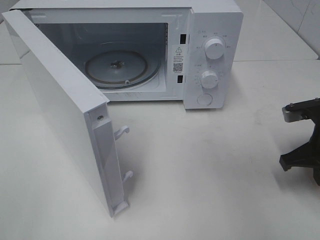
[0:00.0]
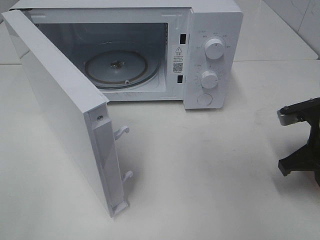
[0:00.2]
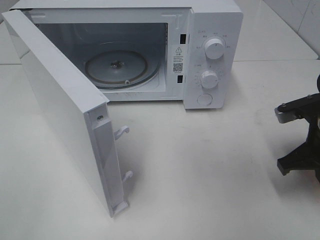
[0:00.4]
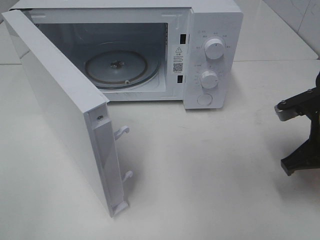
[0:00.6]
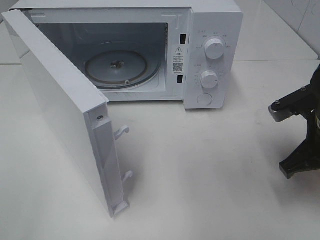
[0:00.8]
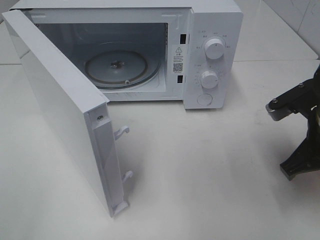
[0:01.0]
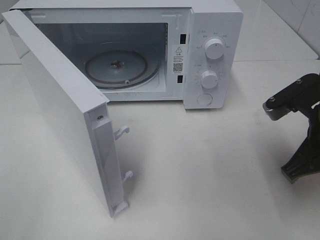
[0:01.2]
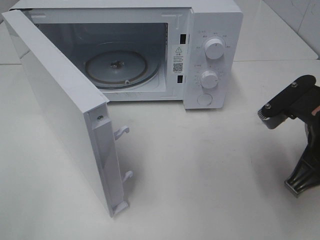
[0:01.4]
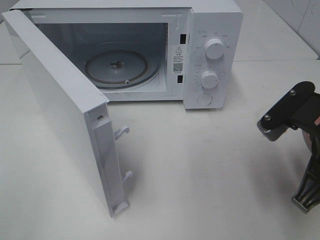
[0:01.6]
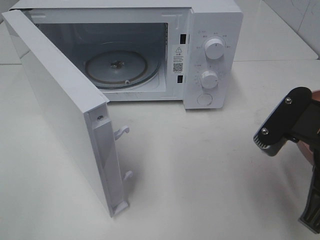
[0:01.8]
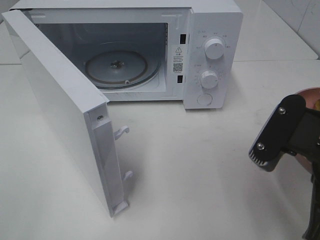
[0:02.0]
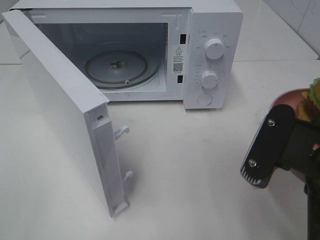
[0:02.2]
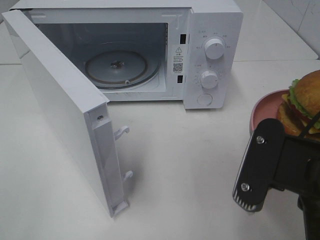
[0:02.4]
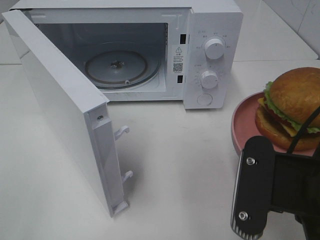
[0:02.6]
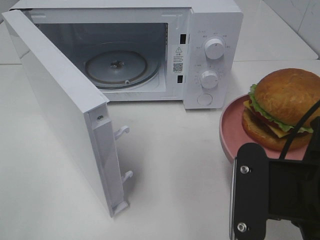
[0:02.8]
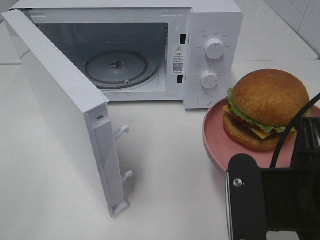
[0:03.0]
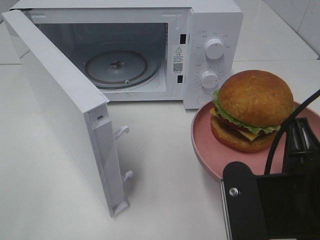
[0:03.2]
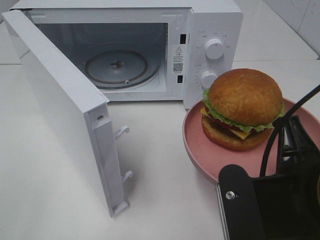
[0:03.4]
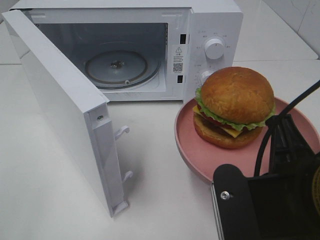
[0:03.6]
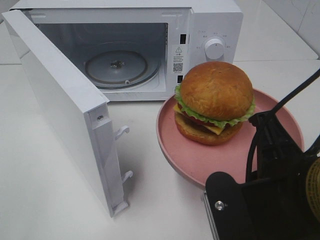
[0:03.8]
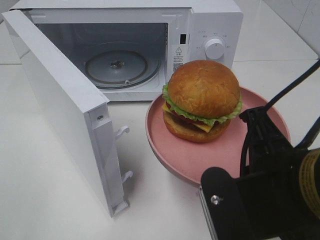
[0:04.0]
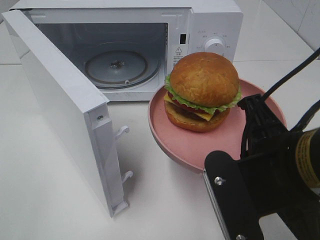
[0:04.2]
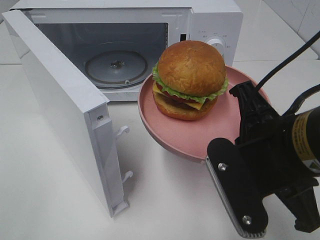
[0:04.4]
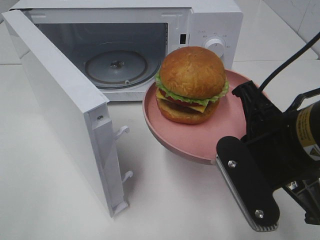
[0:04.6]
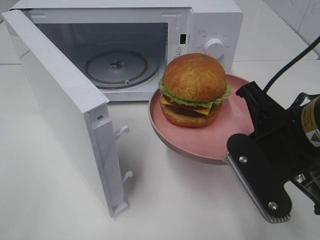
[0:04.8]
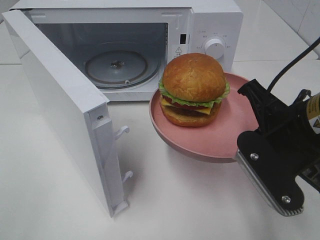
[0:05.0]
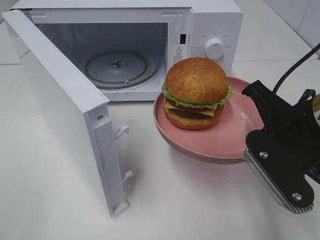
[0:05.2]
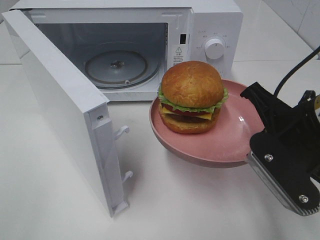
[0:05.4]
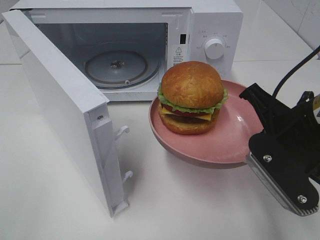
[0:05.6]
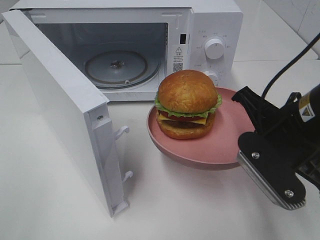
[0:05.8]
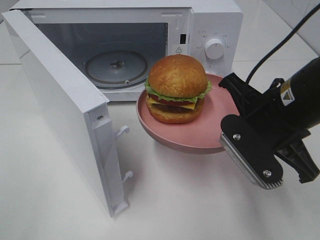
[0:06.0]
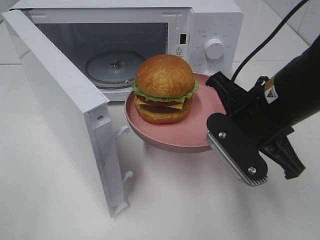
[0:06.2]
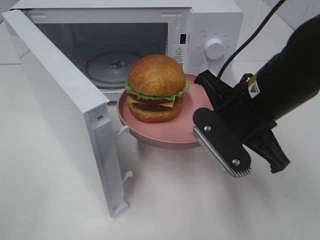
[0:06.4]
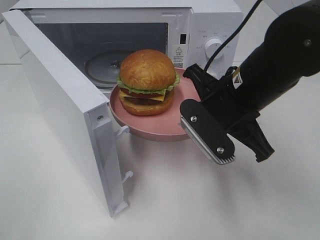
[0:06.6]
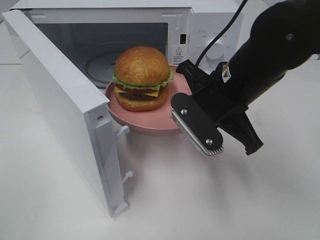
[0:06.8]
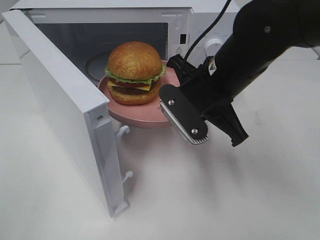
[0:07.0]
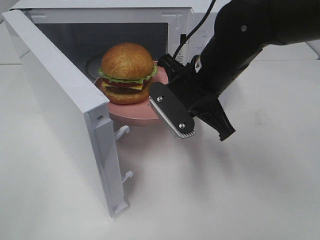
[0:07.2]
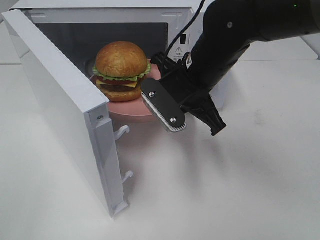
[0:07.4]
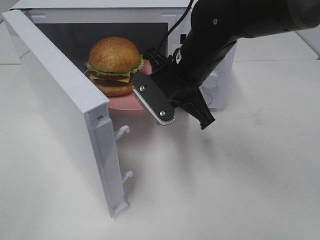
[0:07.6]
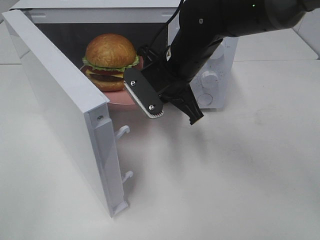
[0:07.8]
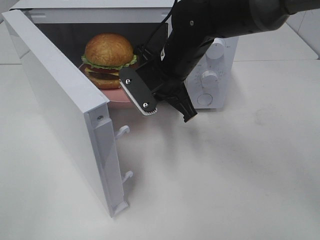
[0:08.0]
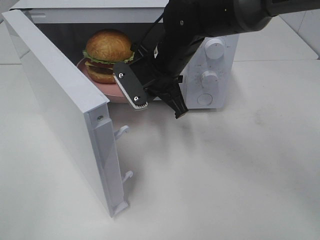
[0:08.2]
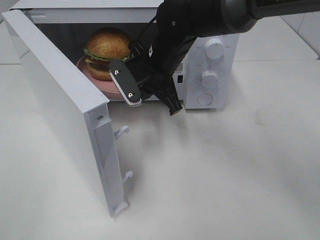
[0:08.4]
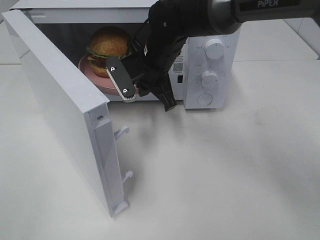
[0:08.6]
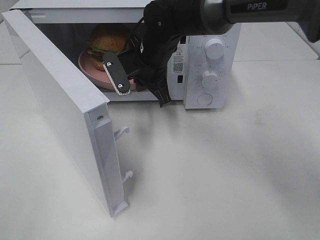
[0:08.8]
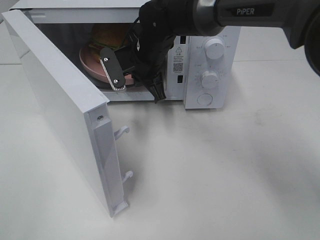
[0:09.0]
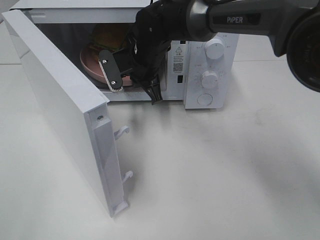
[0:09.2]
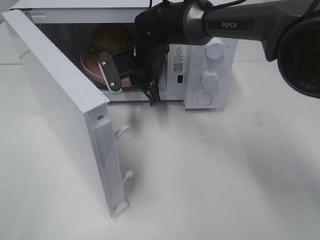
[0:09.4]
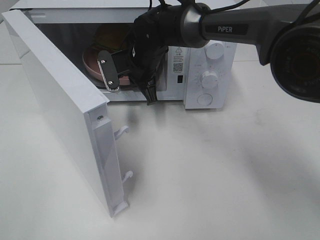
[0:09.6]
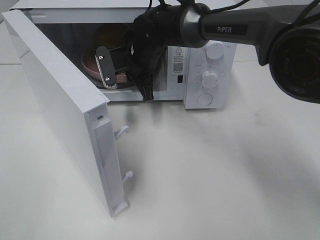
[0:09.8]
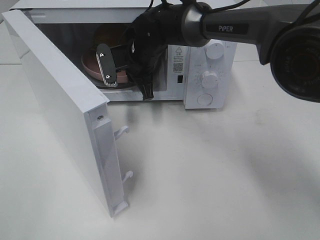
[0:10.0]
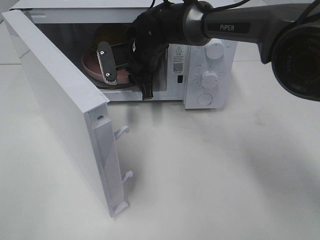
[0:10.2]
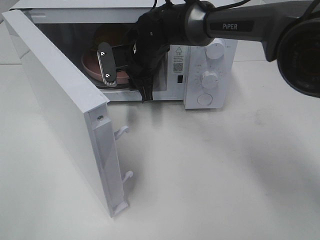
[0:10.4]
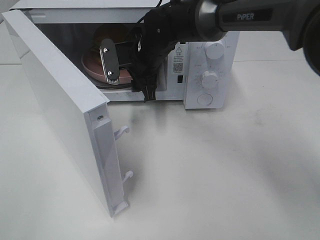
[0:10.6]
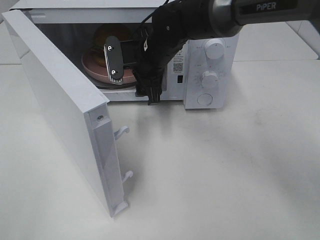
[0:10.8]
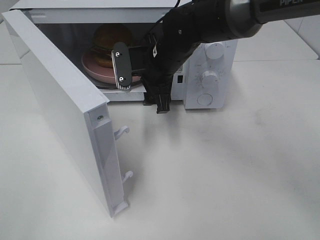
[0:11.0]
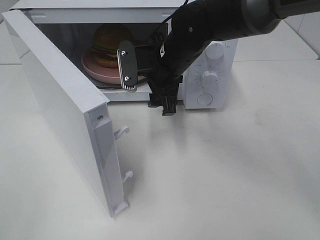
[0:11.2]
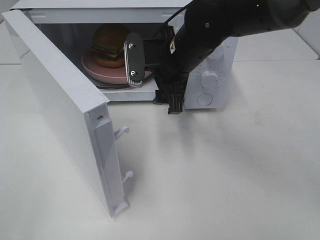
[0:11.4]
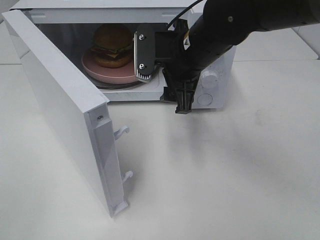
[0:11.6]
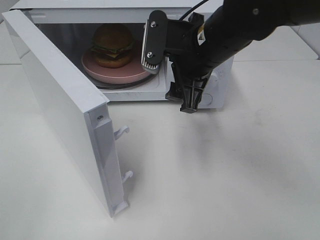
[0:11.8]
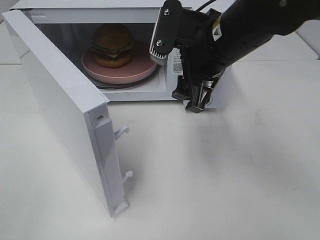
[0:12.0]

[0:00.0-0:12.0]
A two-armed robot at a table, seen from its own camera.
Task of the whole recording: Heat the burger.
Step, 0:00.0 to 0:10.8: Right hand: place the plate in the microwave.
0:00.0 to 0:01.6: The right gripper goes some 15 cm backward, to the left and upward.
0:01.6 to 0:03.0: The right gripper moves backward and to the left, approximately 10 cm.
0:03.0 to 0:04.4: The right gripper is displaced forward by approximately 5 cm.
0:04.4 to 0:06.0: The right gripper moves forward, some 5 cm.
0:06.0 to 0:07.6: The right gripper is displaced forward and to the left by about 15 cm.
0:07.6 to 0:09.0: The right gripper heads forward and to the left, covering approximately 10 cm.
0:09.0 to 0:10.4: The right gripper opens.
0:10.4 to 0:12.0: The right gripper heads backward, to the right and upward, covering roughly 20 cm.

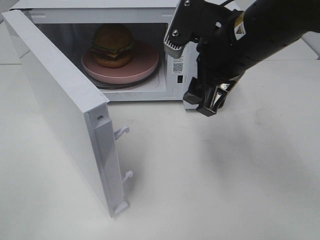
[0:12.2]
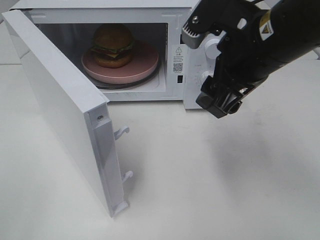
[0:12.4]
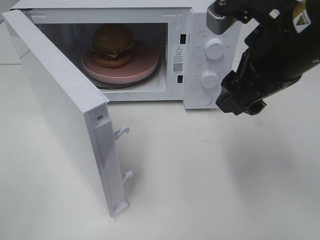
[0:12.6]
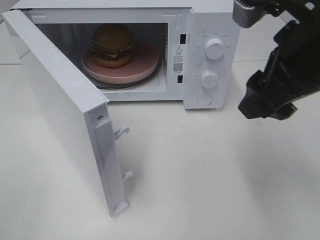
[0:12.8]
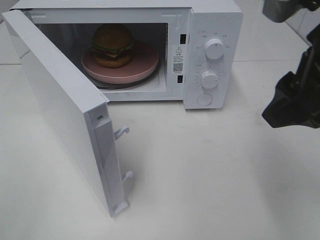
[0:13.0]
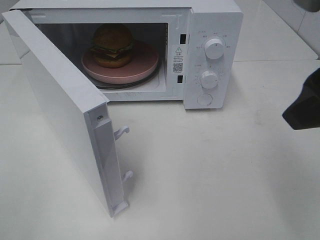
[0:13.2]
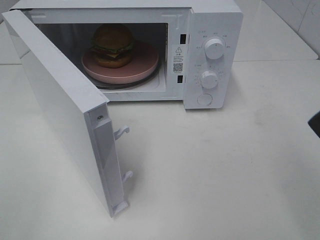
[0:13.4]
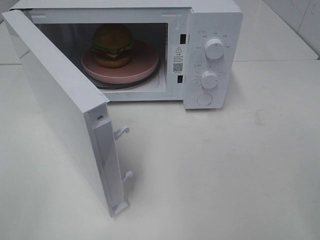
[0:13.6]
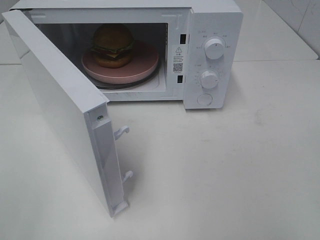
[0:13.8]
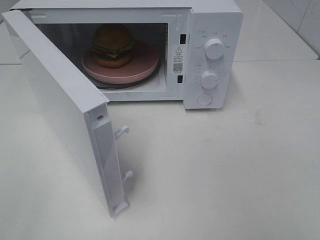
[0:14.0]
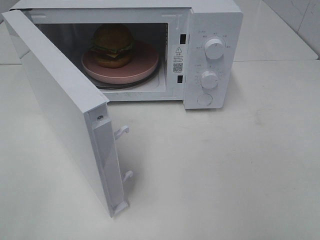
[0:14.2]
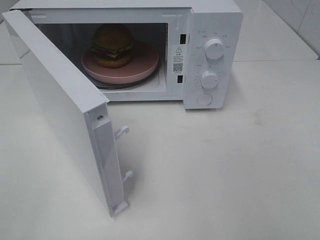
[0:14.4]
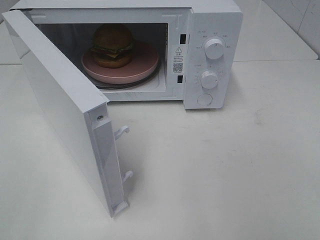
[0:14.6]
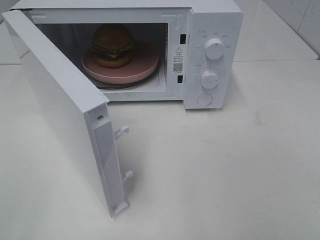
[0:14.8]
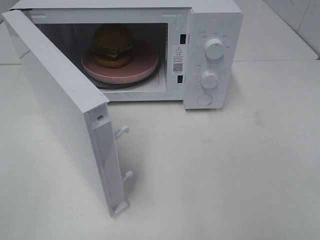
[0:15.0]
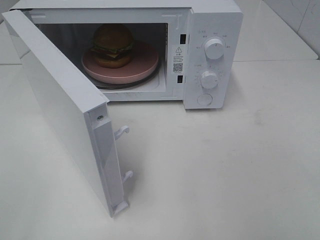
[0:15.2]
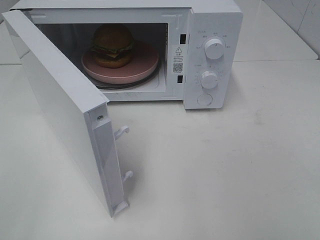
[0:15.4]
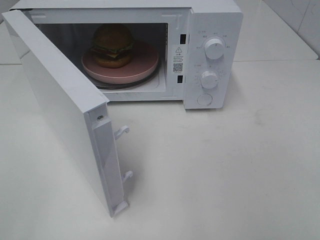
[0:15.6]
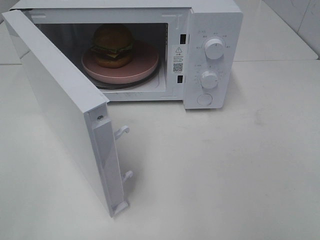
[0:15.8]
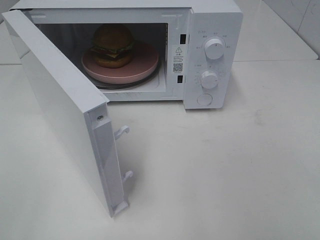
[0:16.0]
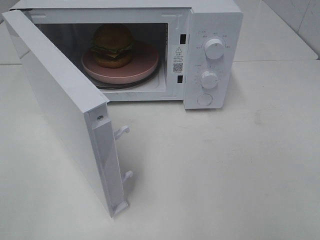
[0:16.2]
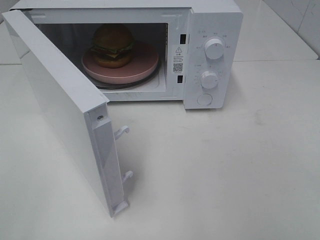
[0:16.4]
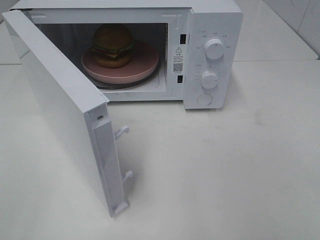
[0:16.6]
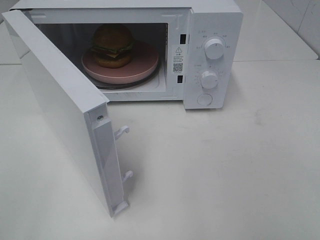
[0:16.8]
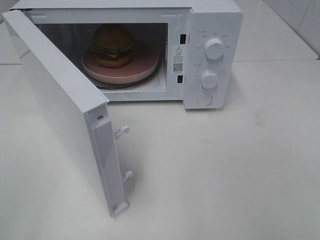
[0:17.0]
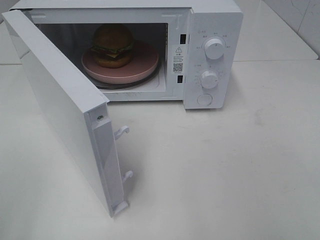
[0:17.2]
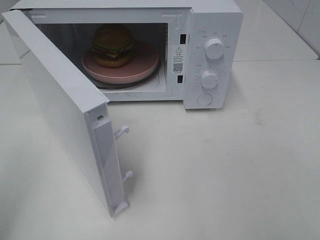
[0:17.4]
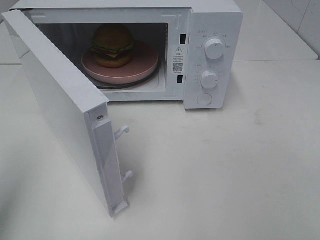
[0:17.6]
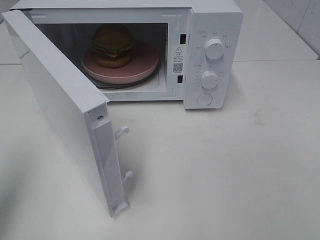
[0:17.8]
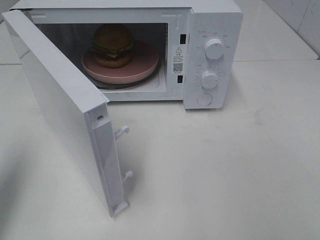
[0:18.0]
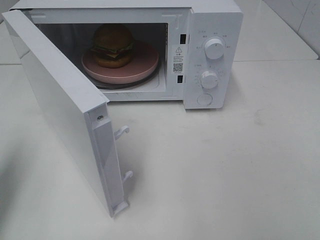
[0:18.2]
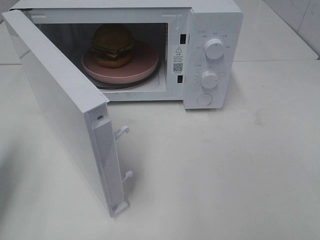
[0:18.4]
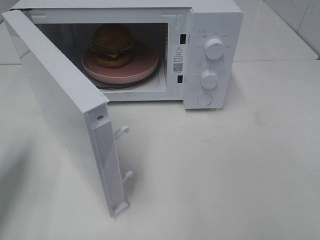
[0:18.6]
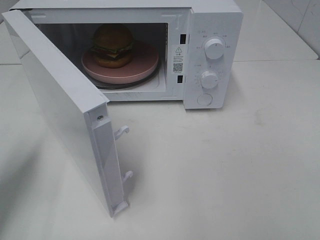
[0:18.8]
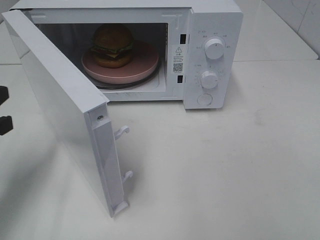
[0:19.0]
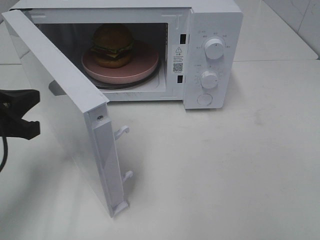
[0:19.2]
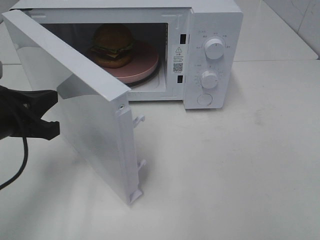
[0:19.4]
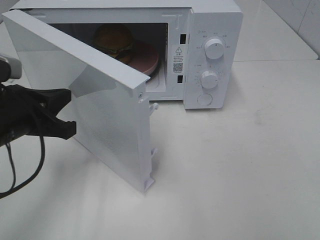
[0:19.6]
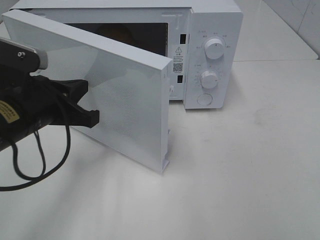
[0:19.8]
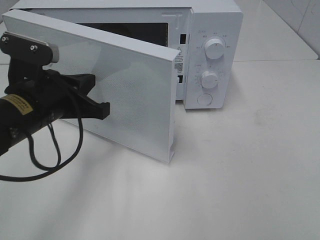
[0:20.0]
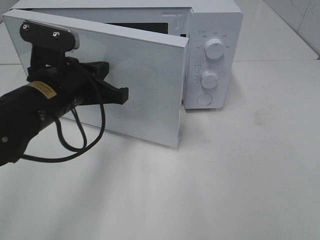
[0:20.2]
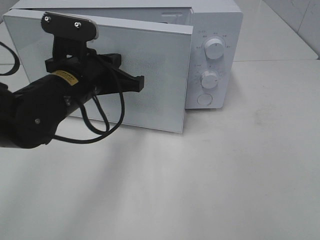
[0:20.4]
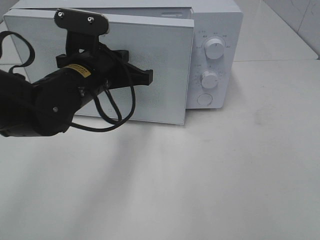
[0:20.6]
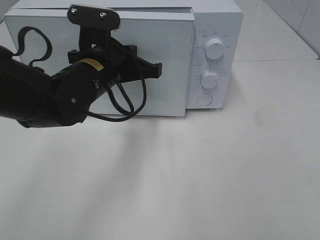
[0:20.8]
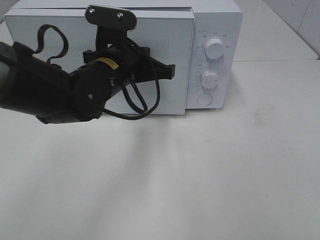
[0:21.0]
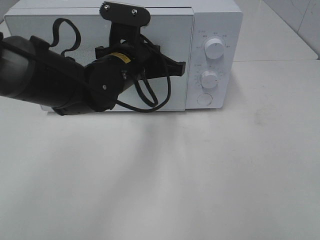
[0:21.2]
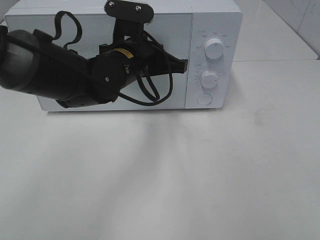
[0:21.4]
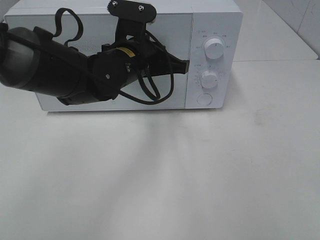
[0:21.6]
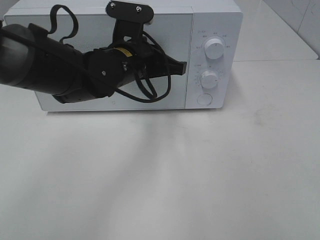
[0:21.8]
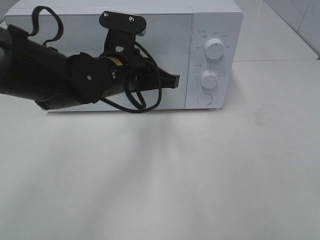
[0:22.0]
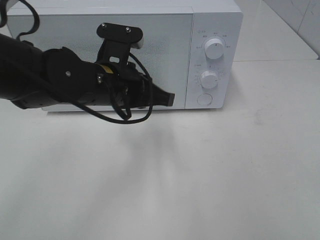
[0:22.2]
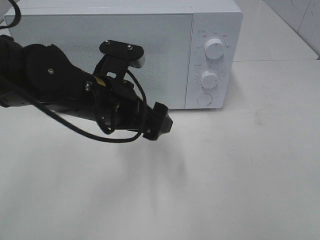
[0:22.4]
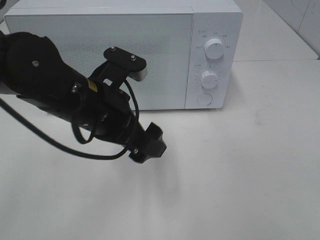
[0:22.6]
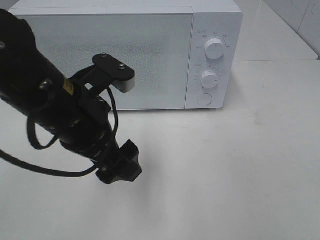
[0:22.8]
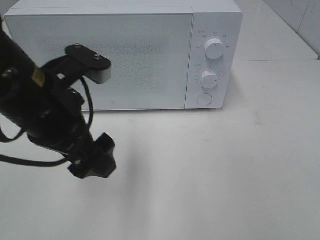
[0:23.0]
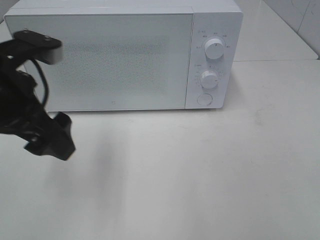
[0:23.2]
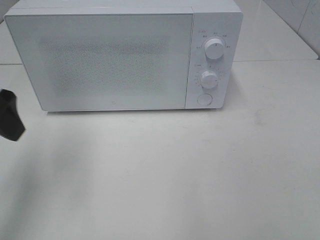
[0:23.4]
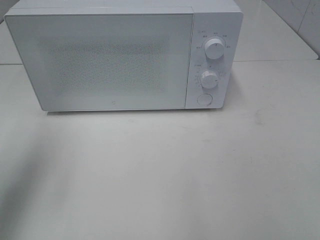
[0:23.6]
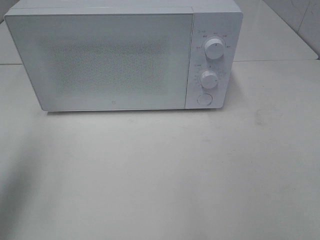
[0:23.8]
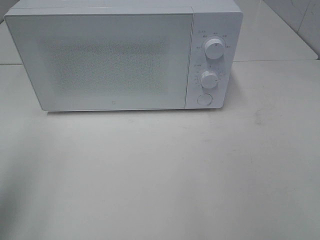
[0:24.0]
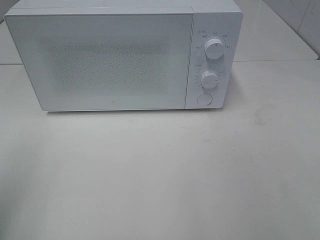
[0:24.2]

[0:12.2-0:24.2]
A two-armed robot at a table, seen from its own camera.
Task of the whole recording: Heat the burger.
Step, 0:12.2 to 0:22.2: Left hand: close the microwave door.
0:12.2 to 0:13.8: The right gripper heads backward and to the right, covering approximately 25 cm.
0:15.2 to 0:16.6: Neither gripper changes place.
0:16.6 to 0:18.2: The left gripper moves forward, approximately 20 cm, and closes up.
0:18.2 to 0:19.8: The left gripper shifts some 20 cm to the right, downward and forward.
0:19.8 to 0:21.2: The left gripper shifts roughly 15 cm to the right and forward.
0:21.2 to 0:22.6: The left gripper travels backward by approximately 10 cm, and opens.
0:22.6 to 0:24.2: The left gripper heads to the left and backward, covering about 25 cm.
